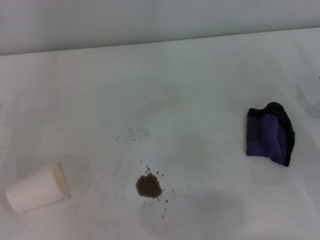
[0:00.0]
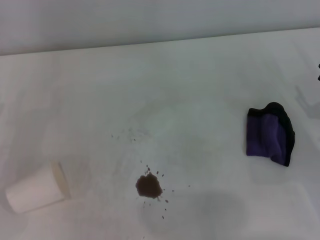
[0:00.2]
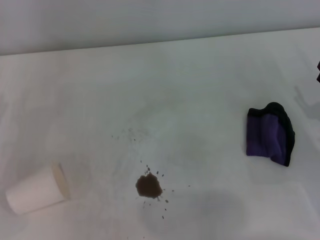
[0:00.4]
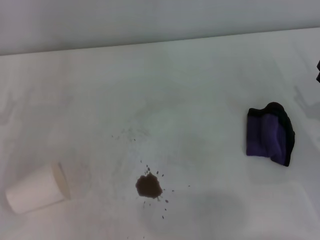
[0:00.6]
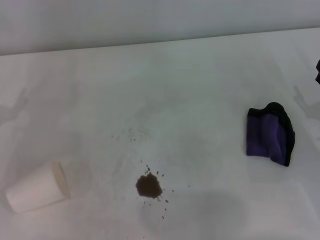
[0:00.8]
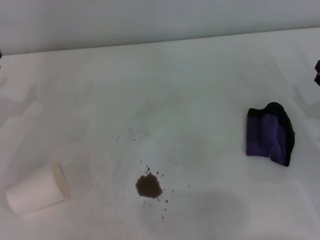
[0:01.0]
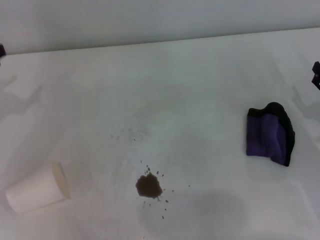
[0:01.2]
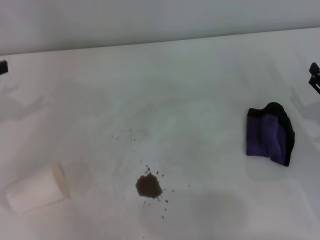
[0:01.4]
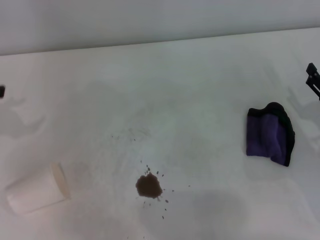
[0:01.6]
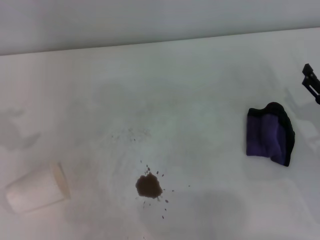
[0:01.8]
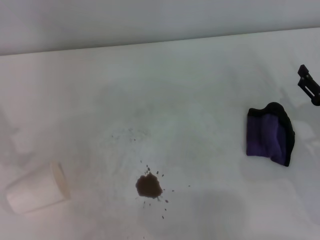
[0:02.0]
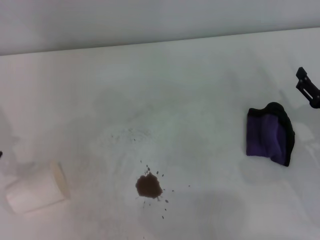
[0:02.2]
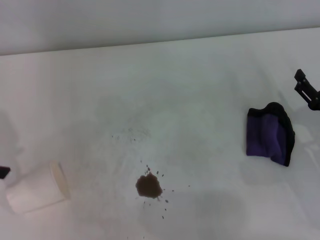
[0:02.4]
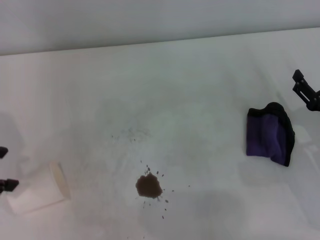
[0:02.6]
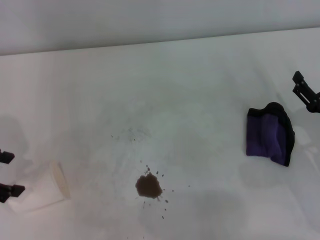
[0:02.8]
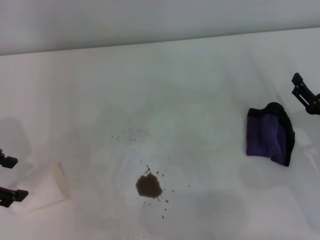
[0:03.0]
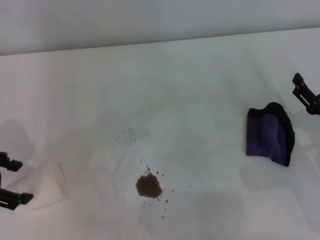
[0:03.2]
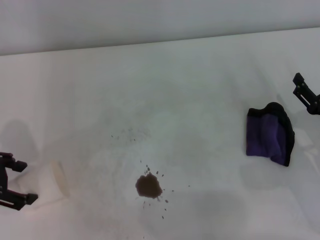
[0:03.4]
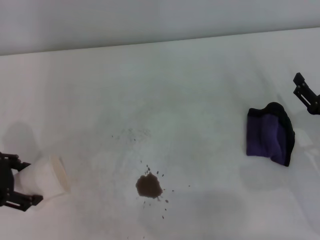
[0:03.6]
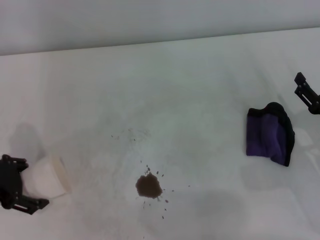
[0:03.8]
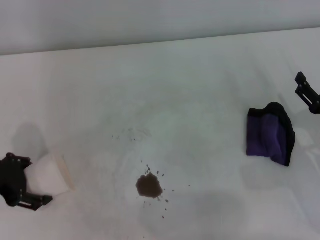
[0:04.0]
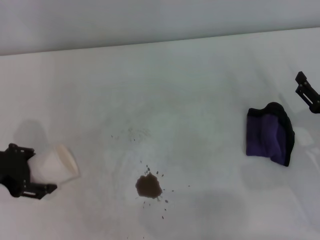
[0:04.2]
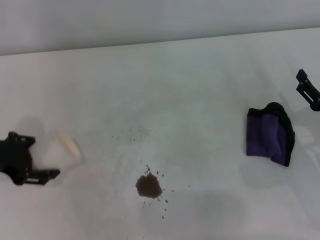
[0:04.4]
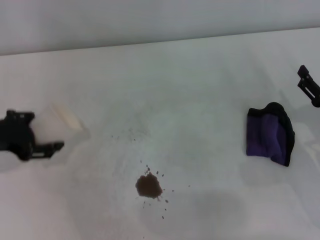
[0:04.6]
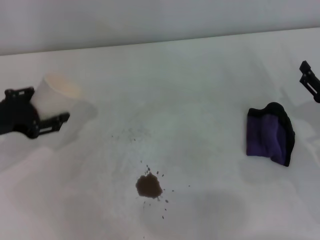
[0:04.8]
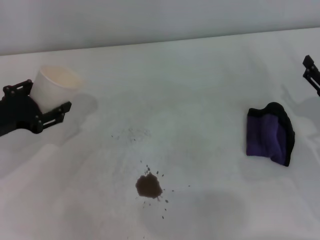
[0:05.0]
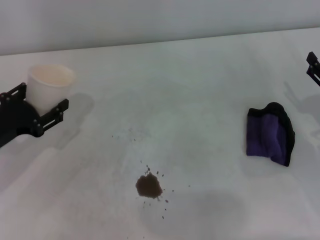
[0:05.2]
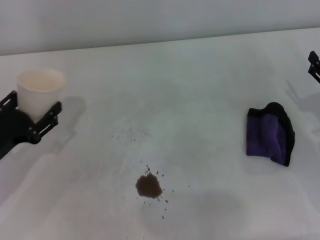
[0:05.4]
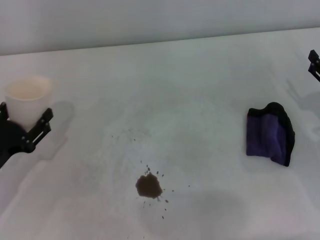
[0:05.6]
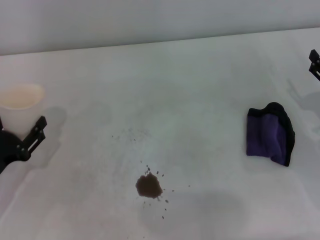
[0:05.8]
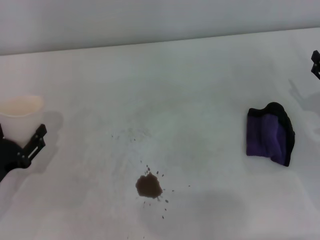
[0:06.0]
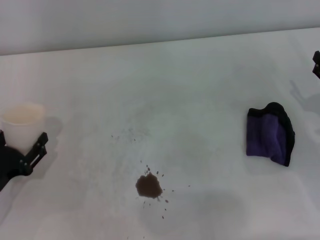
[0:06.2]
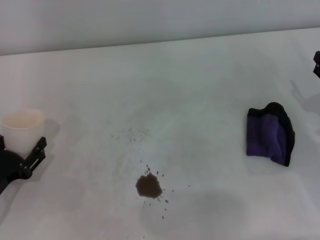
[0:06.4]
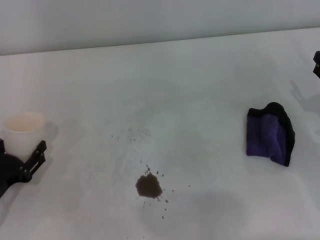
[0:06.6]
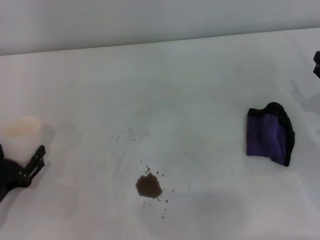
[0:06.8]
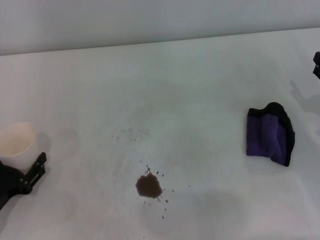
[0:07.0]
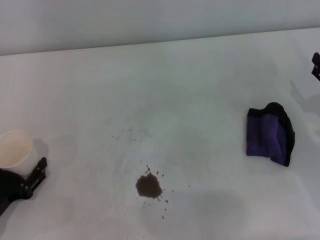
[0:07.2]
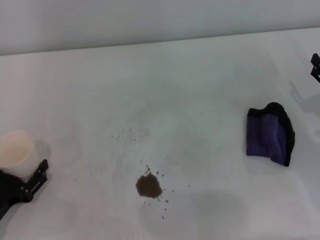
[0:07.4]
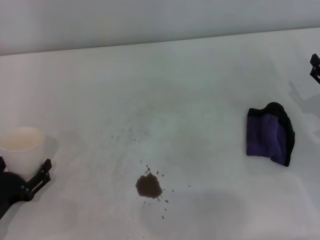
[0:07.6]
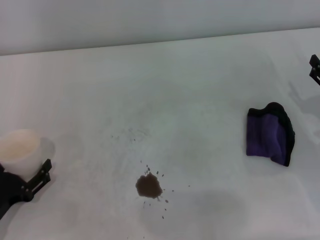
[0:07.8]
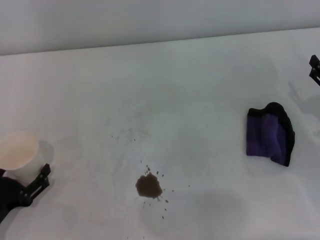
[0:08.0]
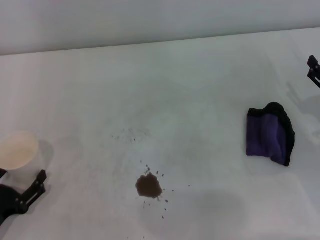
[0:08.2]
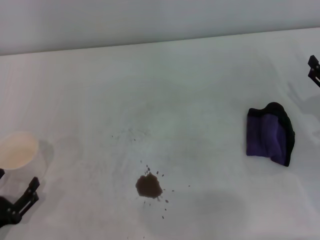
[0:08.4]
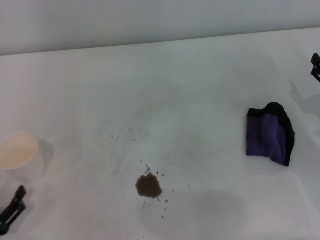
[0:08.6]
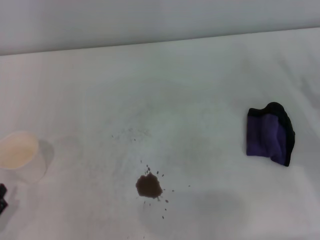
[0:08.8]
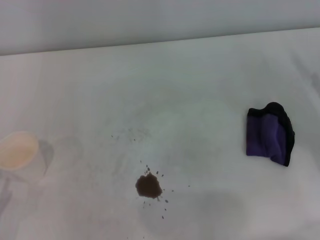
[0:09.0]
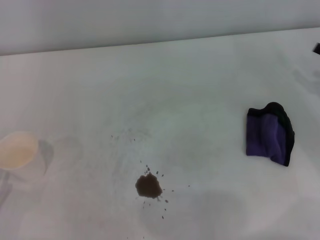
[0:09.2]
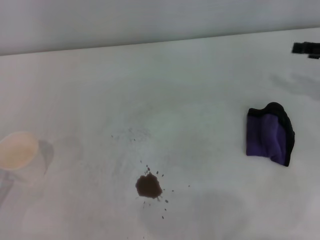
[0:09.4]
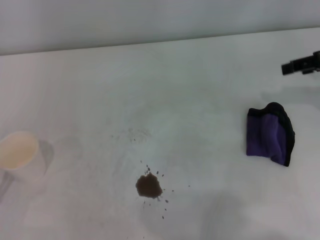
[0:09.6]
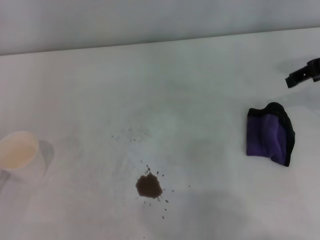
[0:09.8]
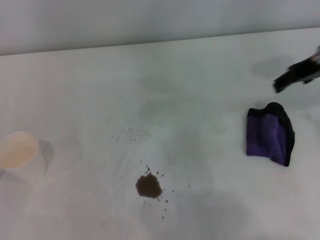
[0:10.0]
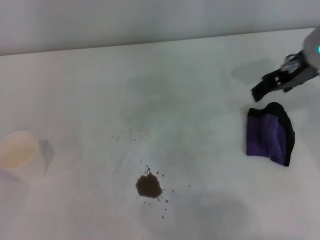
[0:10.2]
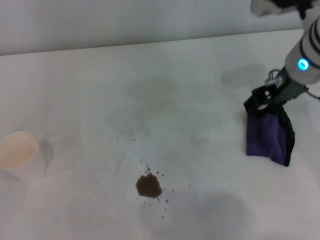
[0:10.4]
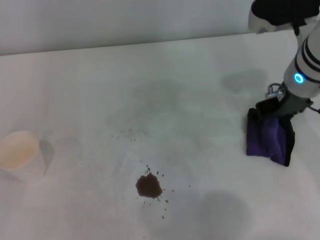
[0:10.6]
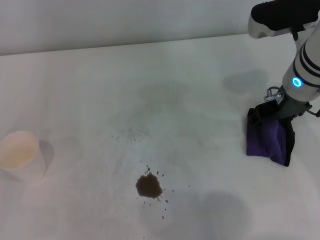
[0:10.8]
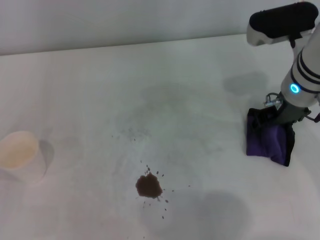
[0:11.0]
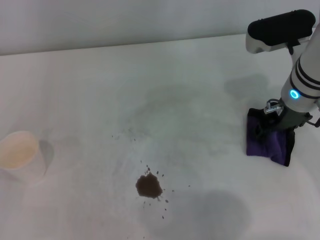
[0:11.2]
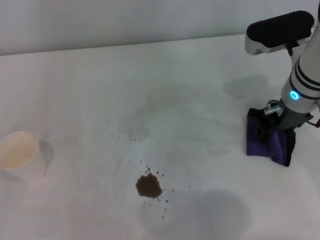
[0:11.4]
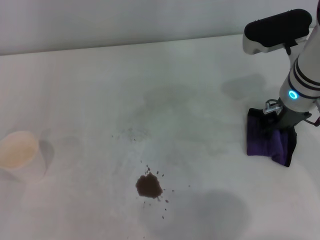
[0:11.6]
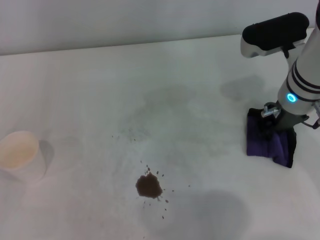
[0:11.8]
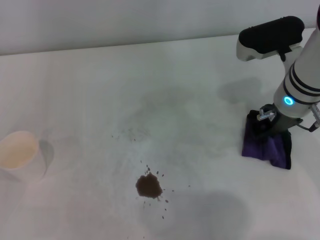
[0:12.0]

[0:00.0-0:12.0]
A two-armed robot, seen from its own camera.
Step, 0.0 to 4.0 s: Grasp the paper cup with the left gripper.
Step, 4.2 to 8.2 s: Stand the paper cup upright with the left gripper.
Step, 8.4 to 11.6 s: Grasp the rag with the right gripper.
1.6 to 3.0 s: The left gripper changes place by about 5 cm.
3.0 to 4.4 s: The left gripper shifts by some 5 cm, and closes.
4.4 to 6.0 s: The left gripper heads downward and backward, covering some 15 cm.
6.0 to 7.6 s: There are only small adjustments of the grippers.
7.6 to 9.0 s: The left gripper moves backward, some 5 cm, and opens.
9.0 to 10.4 s: The right gripper shifts roughly 25 cm to the left, upward and forward.
10.4 to 12.0 s: The right gripper goes approximately 5 cm downward, and closes its fingers.

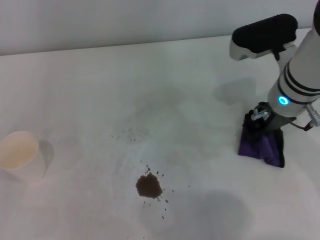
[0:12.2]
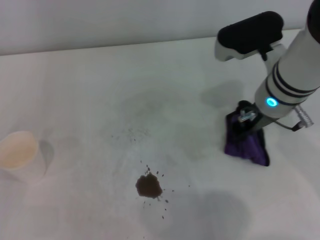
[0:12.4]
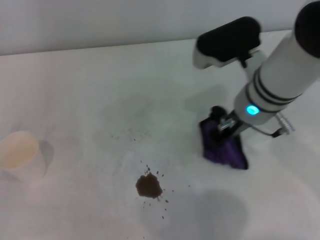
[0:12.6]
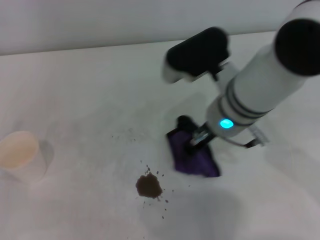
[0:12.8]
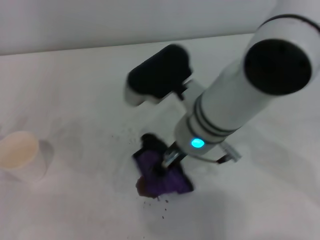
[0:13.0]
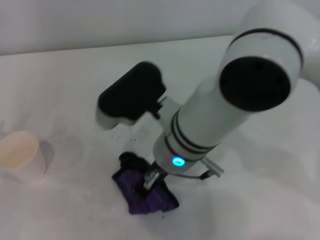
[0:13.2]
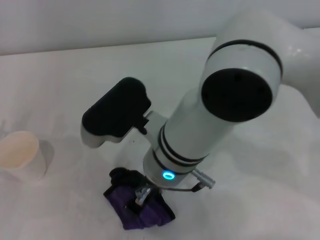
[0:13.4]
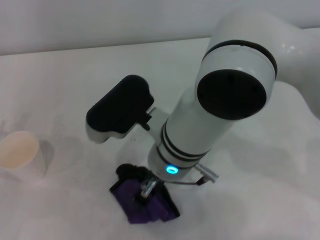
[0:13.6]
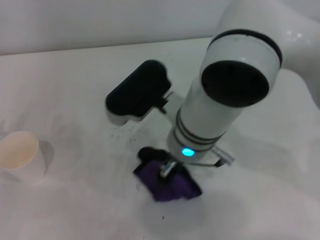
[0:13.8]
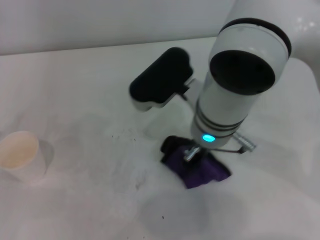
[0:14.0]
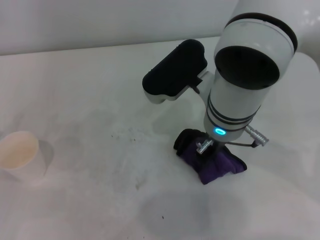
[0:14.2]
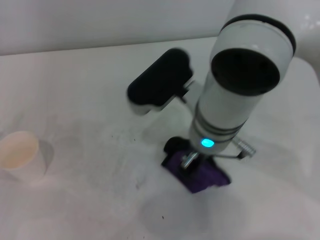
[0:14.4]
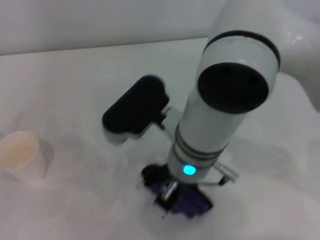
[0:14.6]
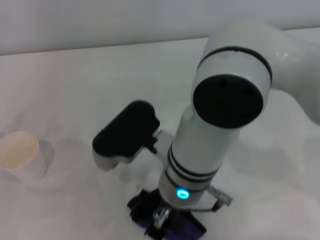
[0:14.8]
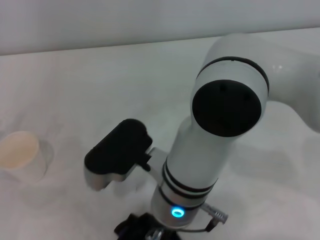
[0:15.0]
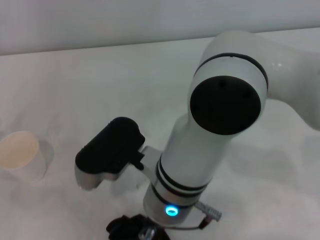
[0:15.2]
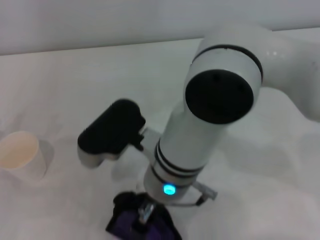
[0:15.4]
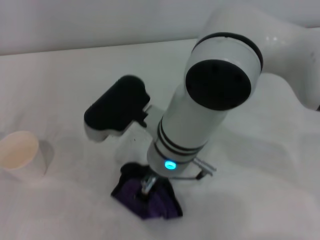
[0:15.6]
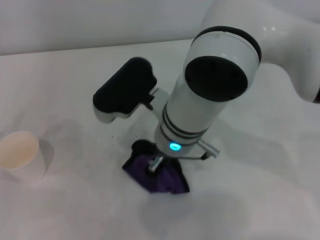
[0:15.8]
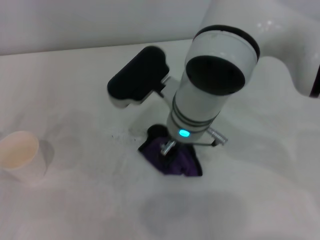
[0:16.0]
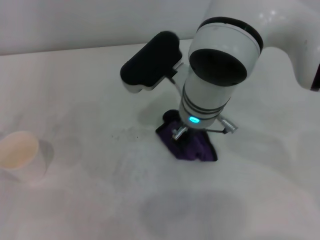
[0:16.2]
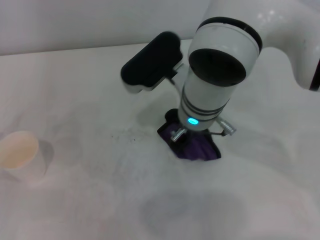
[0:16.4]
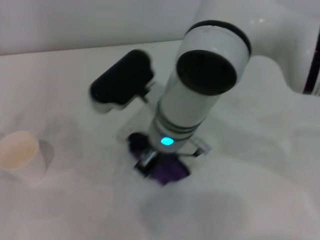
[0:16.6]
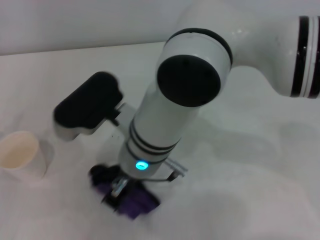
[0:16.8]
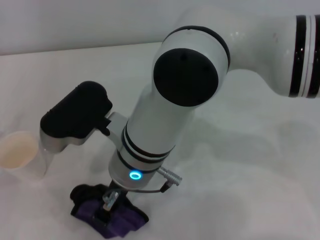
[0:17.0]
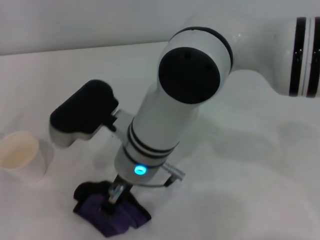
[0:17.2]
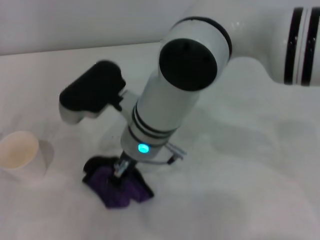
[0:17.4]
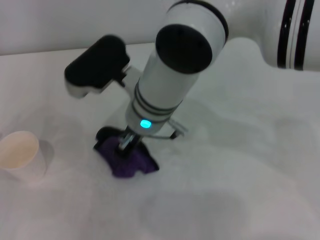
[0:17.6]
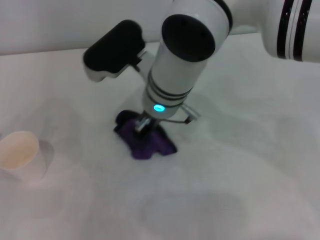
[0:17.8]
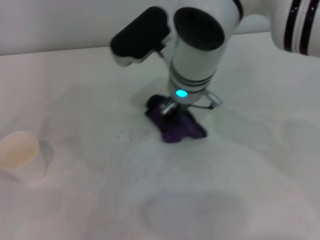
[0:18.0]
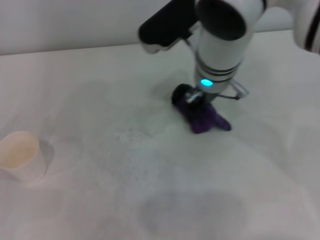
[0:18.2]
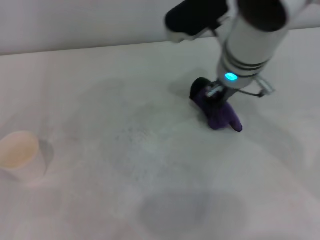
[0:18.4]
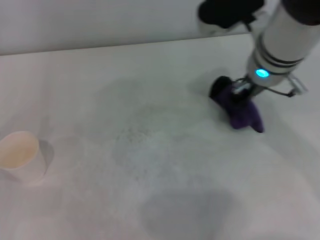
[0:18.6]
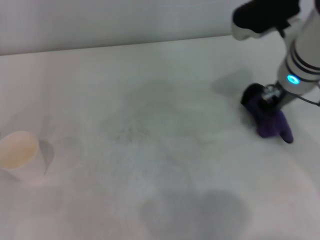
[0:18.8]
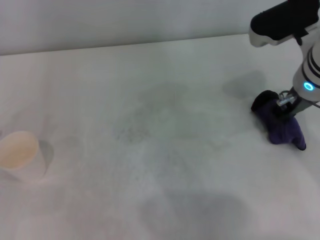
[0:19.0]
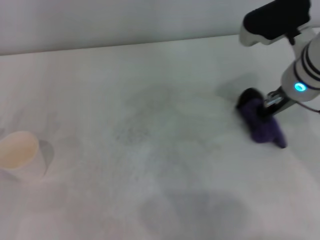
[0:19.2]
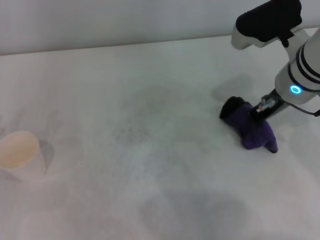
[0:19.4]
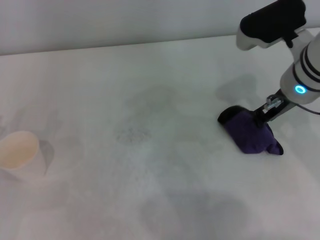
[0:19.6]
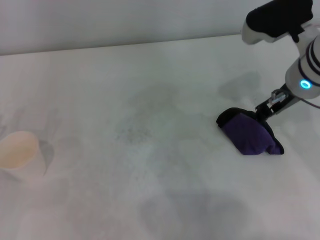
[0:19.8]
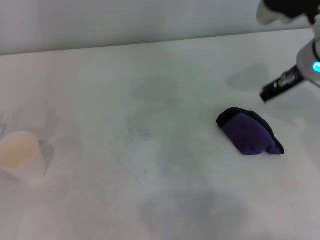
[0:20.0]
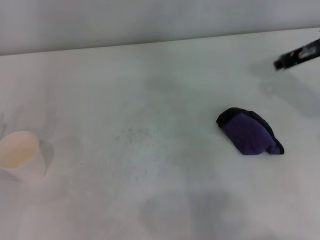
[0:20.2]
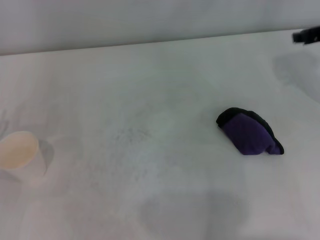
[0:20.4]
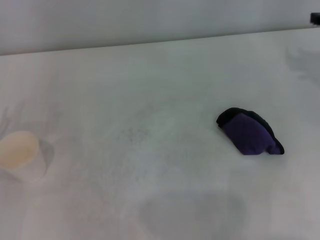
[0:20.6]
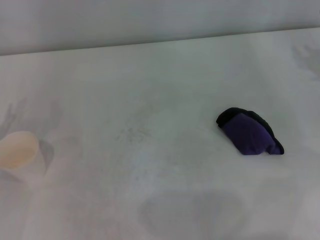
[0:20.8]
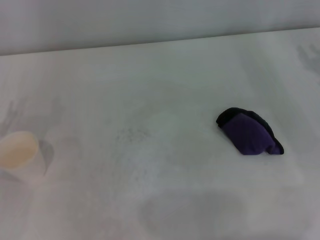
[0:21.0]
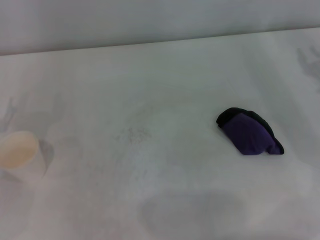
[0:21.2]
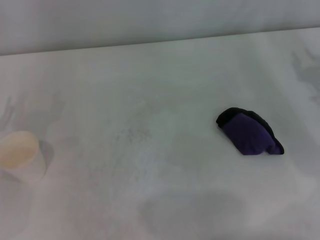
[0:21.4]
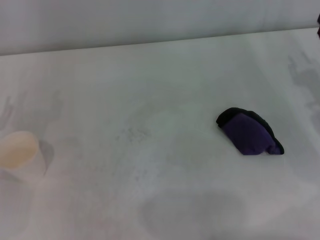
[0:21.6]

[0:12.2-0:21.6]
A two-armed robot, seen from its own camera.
Step, 12.2 to 16.2 s: Wipe the stains off the table with the right gripper.
Step, 16.4 to 19.6 s: Place the rag on the table with the right gripper.
12.2 to 13.8 s: The right gripper heads to the left, covering approximately 15 cm.
17.0 to 18.4 s: The right gripper moves to the right and forward, some 15 cm.
18.4 to 20.0 s: The right gripper heads to the right, covering some 10 cm.
20.0 to 21.6 s: The right gripper heads to the right, downward and backward, covering some 20 cm.

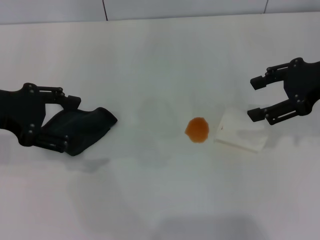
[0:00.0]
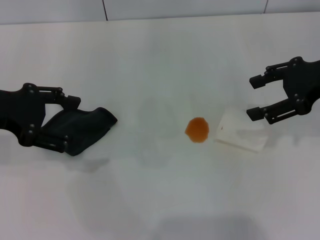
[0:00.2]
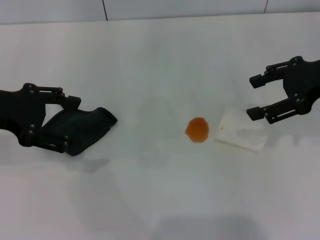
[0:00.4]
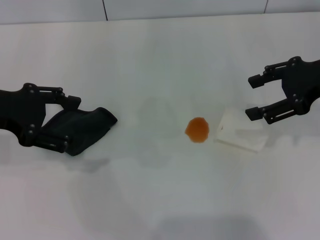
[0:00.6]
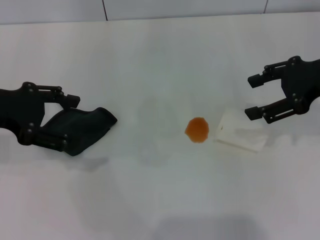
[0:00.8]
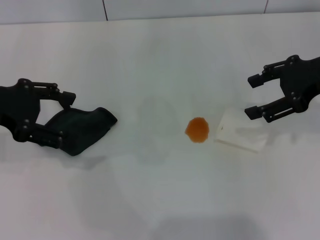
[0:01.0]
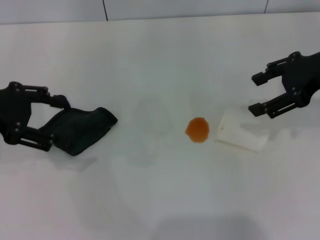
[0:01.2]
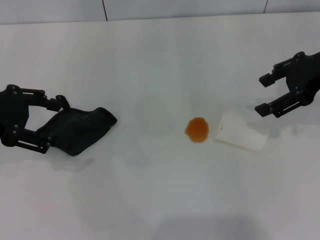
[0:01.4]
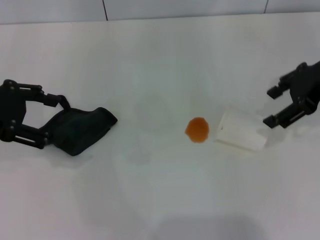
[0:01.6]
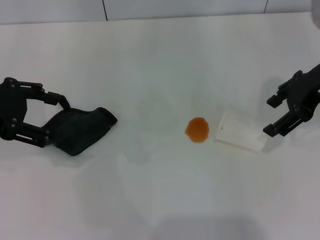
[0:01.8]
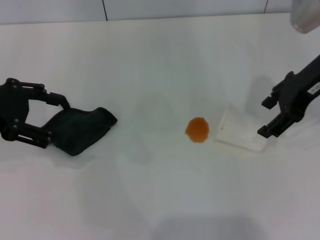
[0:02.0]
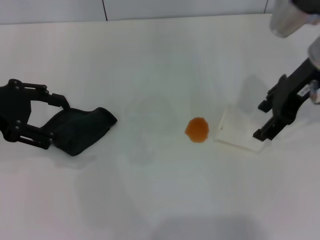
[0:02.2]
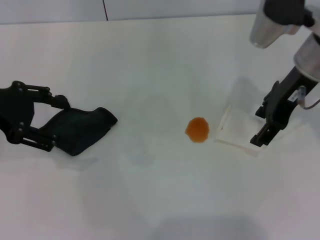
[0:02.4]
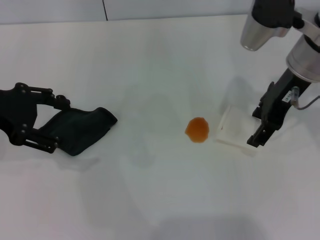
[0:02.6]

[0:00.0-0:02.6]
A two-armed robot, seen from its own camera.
0.0 to 1.2 s: The grippers stay close to where they were, moving slightly.
1.2 to 2.6 s: The right gripper travels to the left by some 10 cm.
